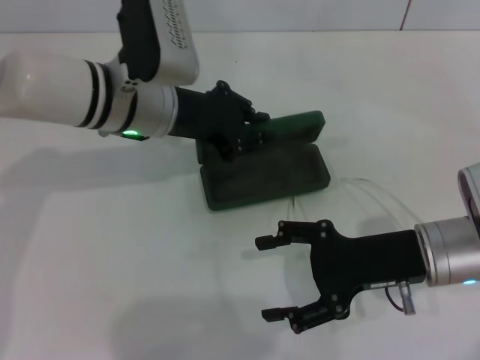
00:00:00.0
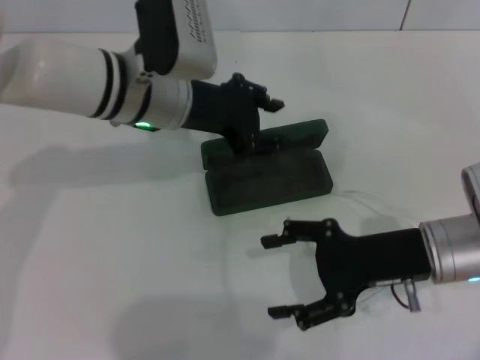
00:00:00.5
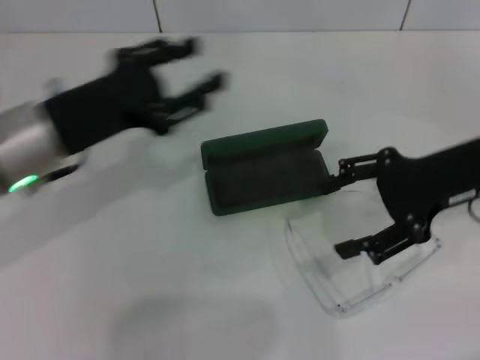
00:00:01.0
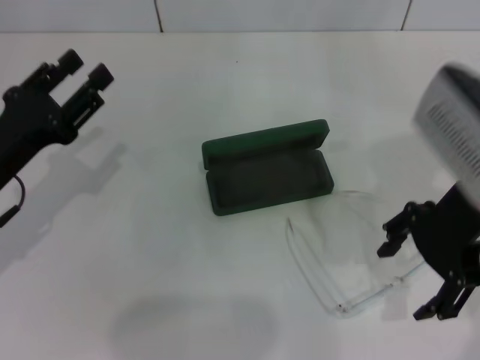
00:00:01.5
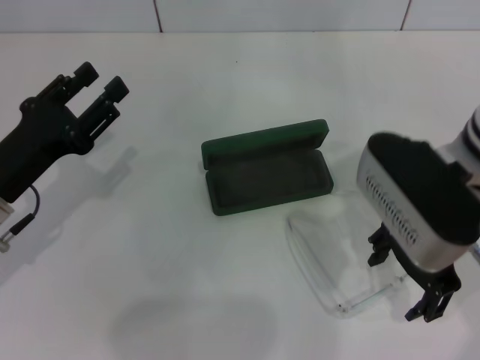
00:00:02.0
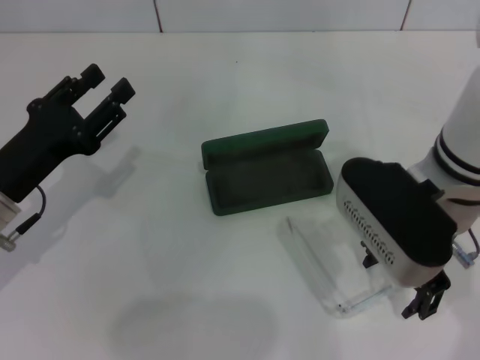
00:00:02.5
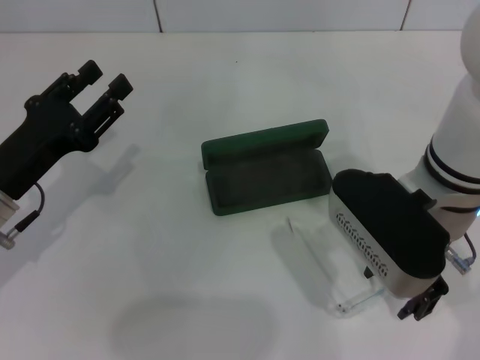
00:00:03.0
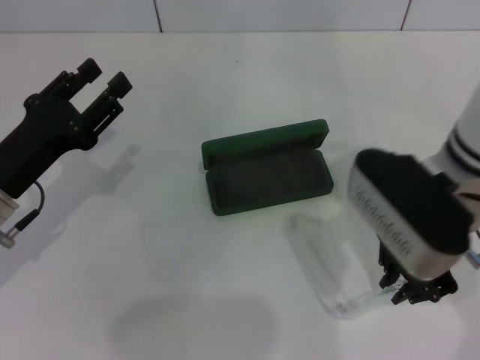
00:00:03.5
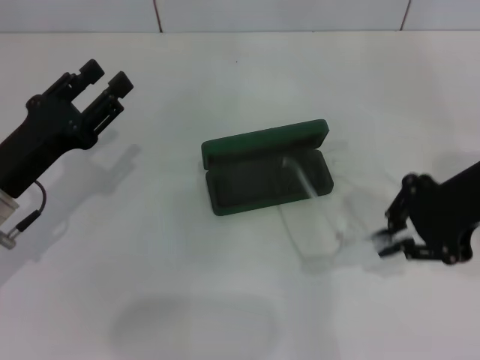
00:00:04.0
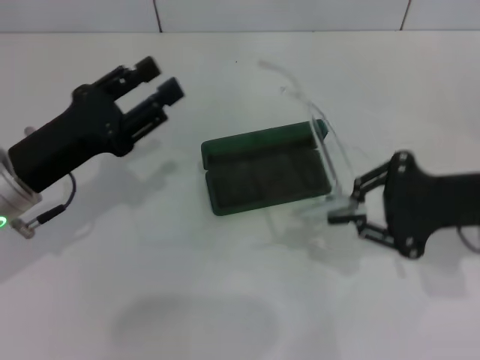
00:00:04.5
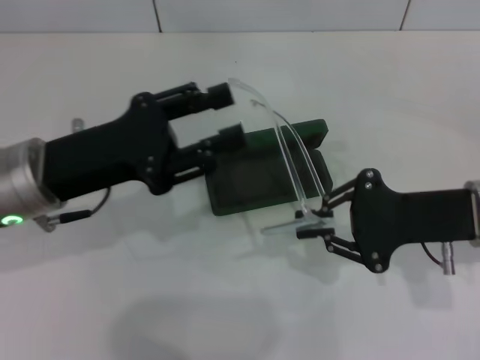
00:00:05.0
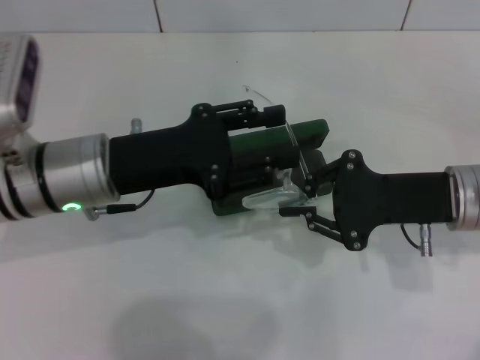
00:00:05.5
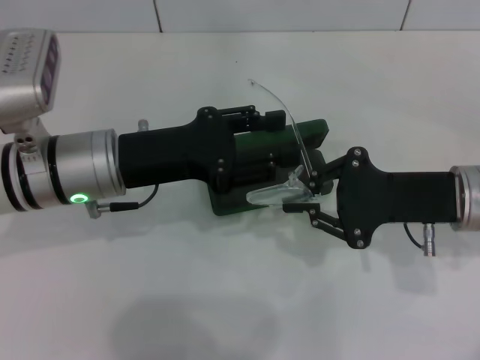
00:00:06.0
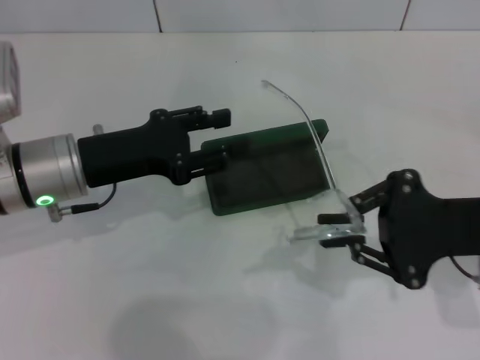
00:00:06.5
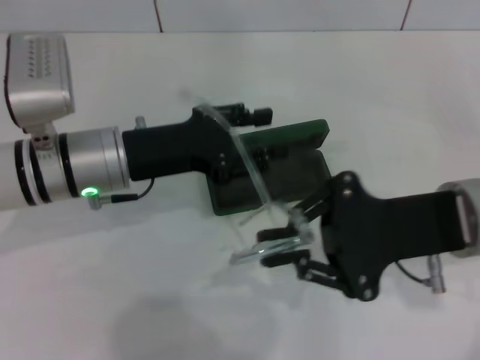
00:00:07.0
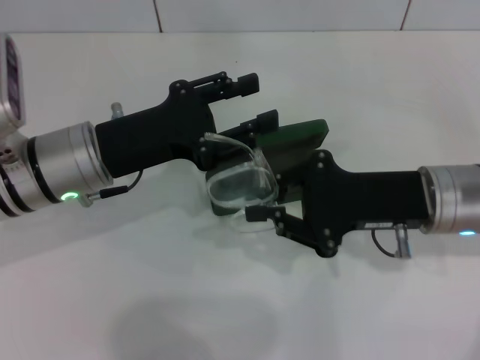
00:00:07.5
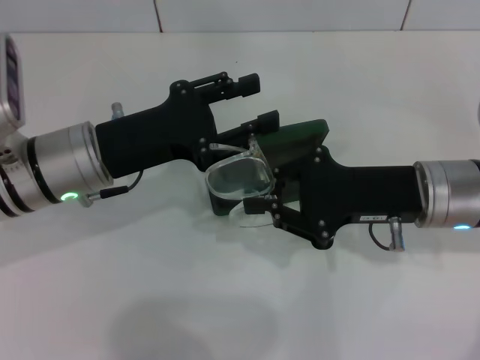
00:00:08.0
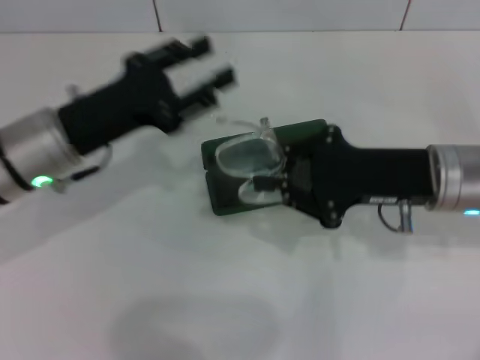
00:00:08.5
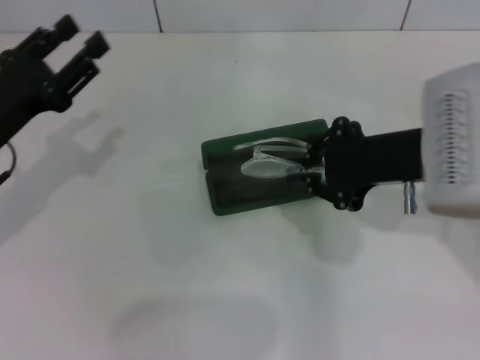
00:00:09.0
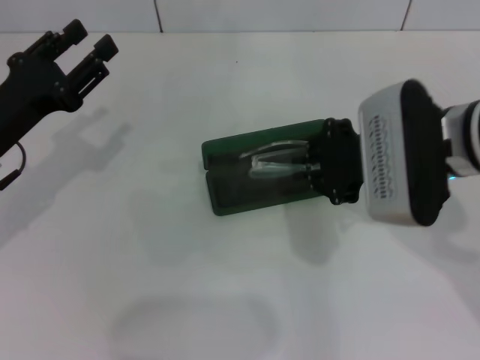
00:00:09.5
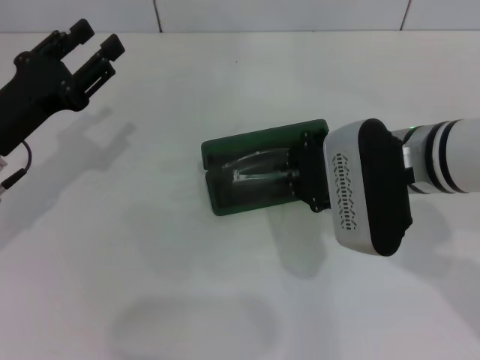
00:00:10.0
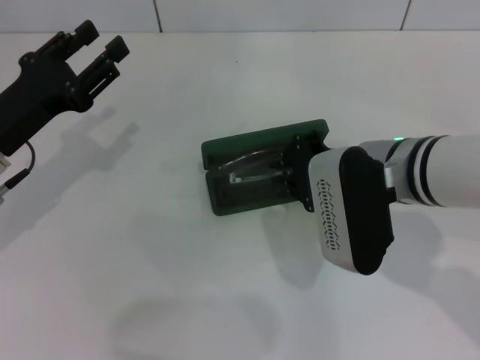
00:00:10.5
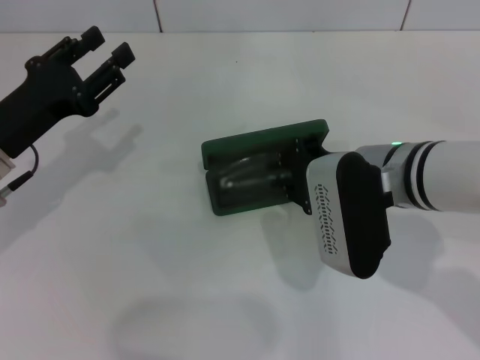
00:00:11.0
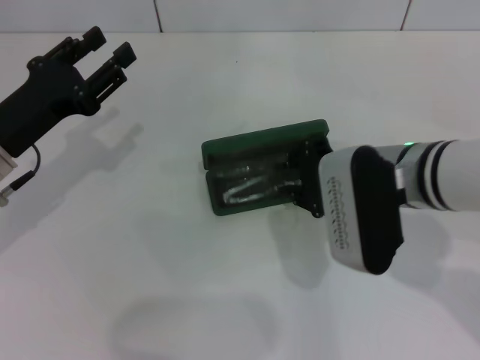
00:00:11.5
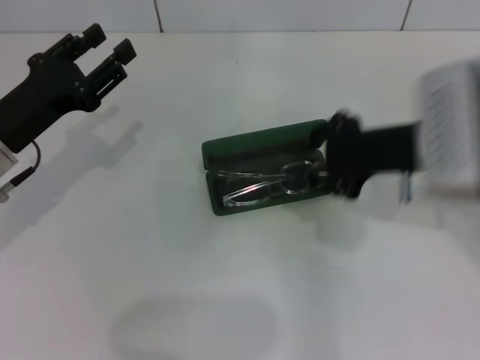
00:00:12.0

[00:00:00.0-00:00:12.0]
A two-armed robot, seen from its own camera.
Step, 00:00:01.0 to 00:00:03.0: Grab the eyeglass frame with your right hand.
Step, 00:00:03.5 to 00:00:08.0: Fold the frame with your left hand.
Step, 00:00:08.5 to 00:00:11.5: Put the glasses into the case with your right hand.
00:00:00.0 to 00:00:02.0: The right gripper heads upward, covering about 10 cm; the left gripper goes approximately 20 cm to the left, backward and downward, and opens.
00:00:02.0 to 00:00:04.0: The right gripper moves to the right, roughly 10 cm, and closes its fingers.
00:00:04.0 to 00:00:06.0: The left gripper goes approximately 10 cm to the right; the right gripper shifts some 10 cm downward.
00:00:08.0 to 00:00:10.0: The right gripper travels to the left by approximately 5 cm. Meanwhile the left gripper shifts roughly 10 cm to the left.
00:00:10.0 to 00:00:12.0: There are only small adjustments of the grippers.

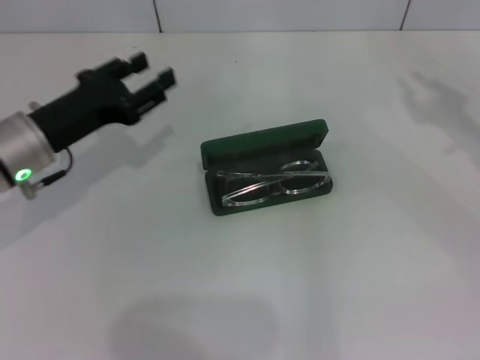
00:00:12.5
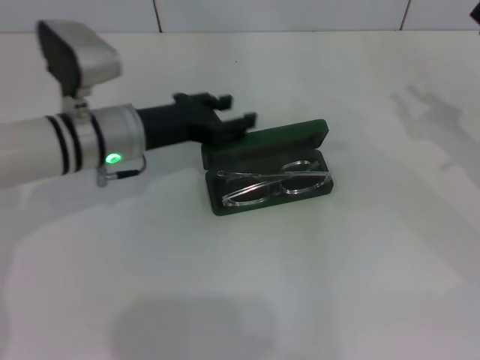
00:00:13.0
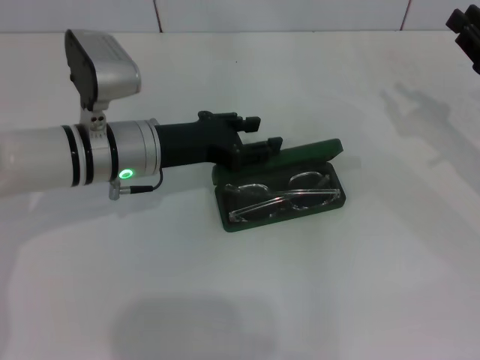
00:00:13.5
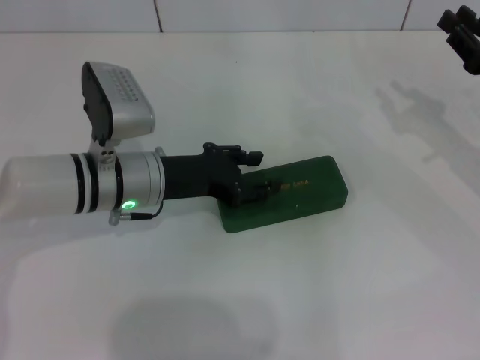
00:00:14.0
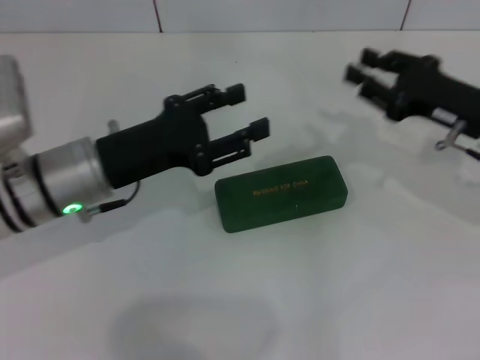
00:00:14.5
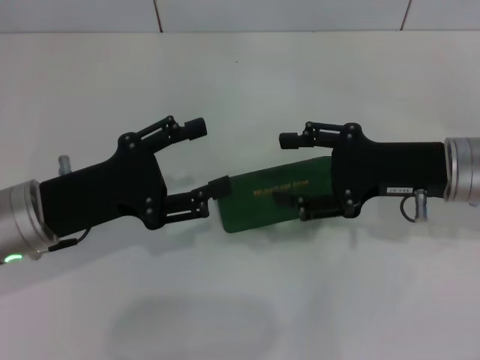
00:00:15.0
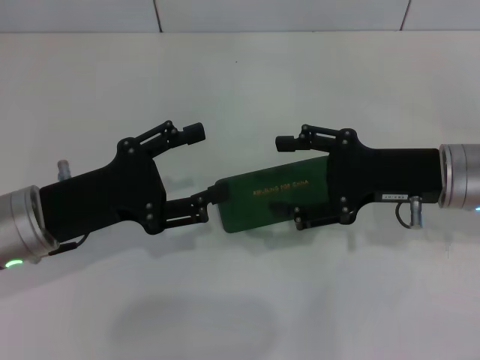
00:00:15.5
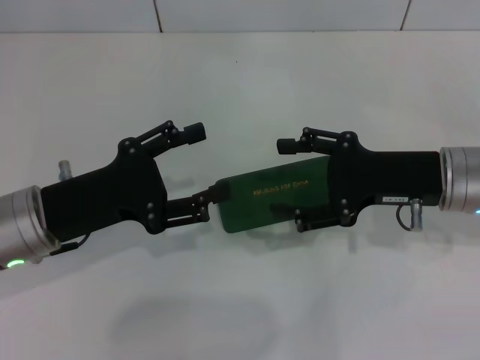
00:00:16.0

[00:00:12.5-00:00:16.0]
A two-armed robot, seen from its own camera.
Step, 00:00:12.5 to 00:00:14.0: Close the glasses case with your left hand.
00:00:12.5 to 00:00:14.5: The left gripper shifts roughly 5 cm to the right. Meanwhile the right gripper goes roughly 10 cm to the left.
00:00:14.5 to 00:00:16.0: The right gripper moves to the left, roughly 5 cm, and opens up; the left gripper moves about 5 cm, and opens its fingers.

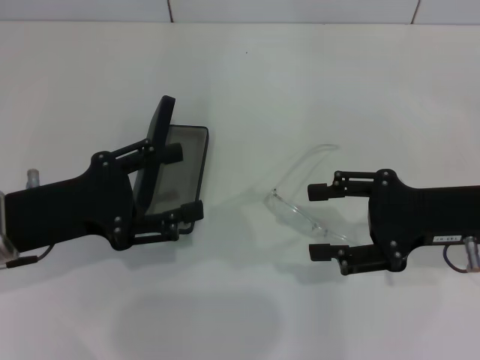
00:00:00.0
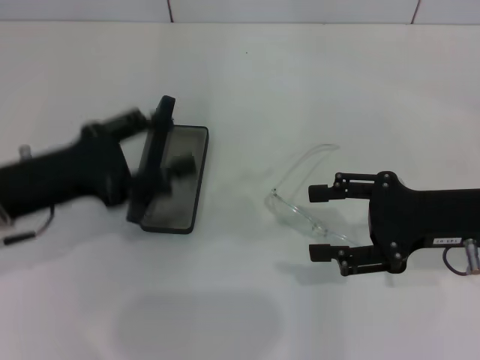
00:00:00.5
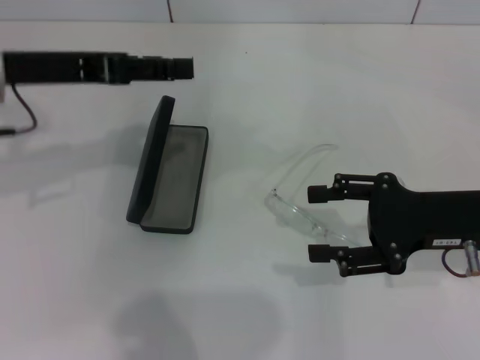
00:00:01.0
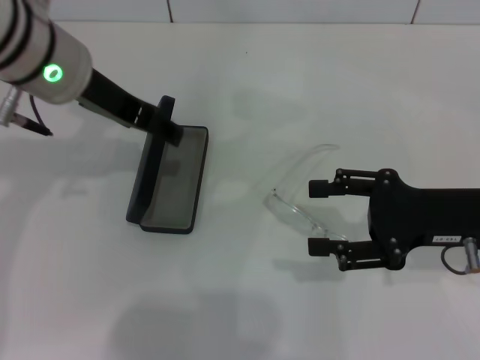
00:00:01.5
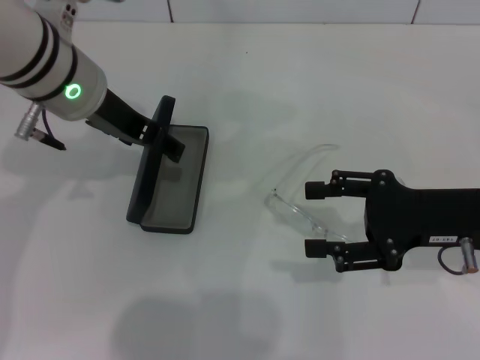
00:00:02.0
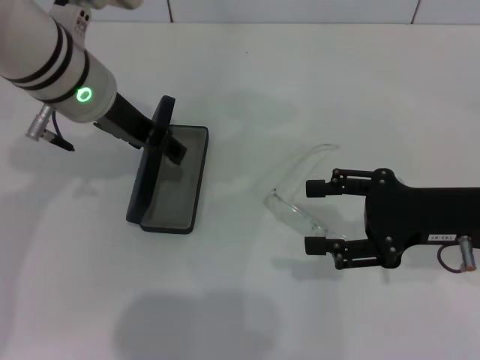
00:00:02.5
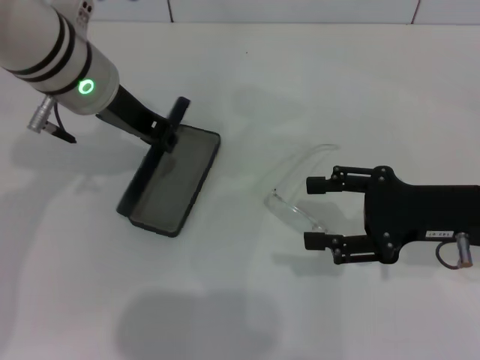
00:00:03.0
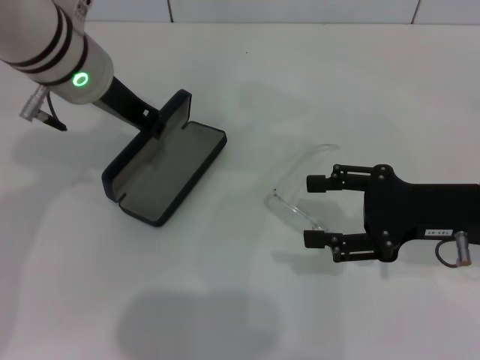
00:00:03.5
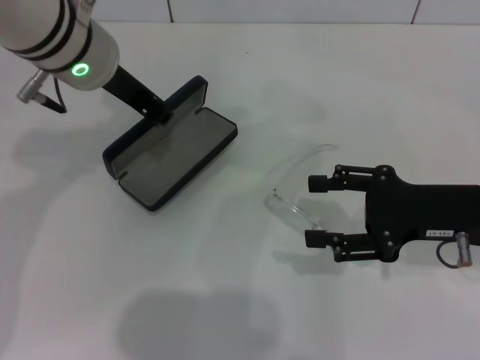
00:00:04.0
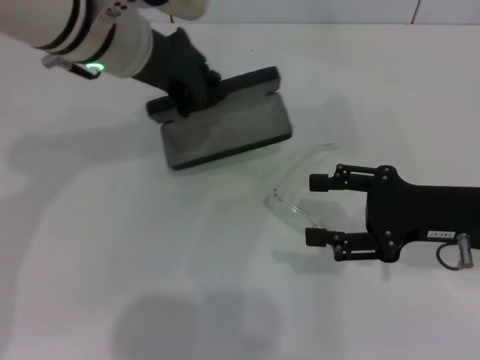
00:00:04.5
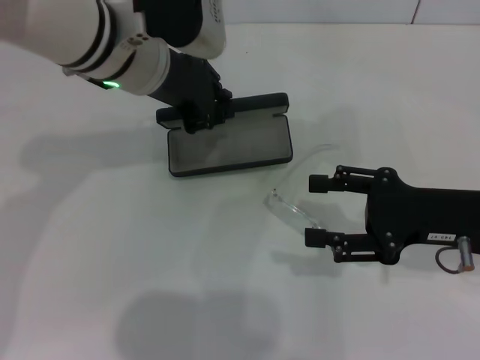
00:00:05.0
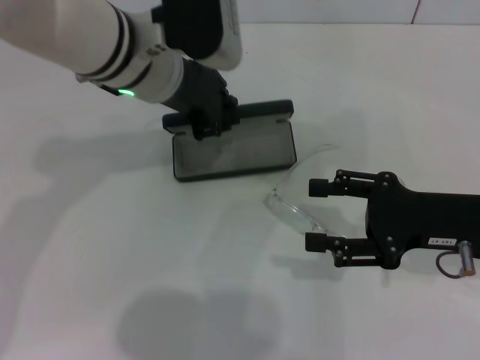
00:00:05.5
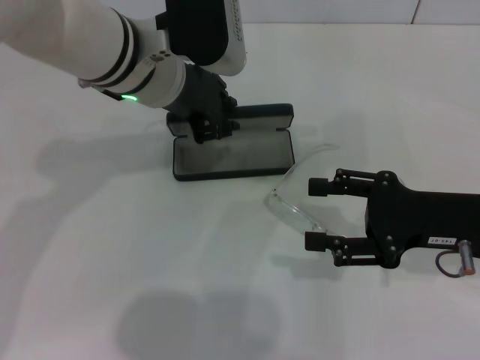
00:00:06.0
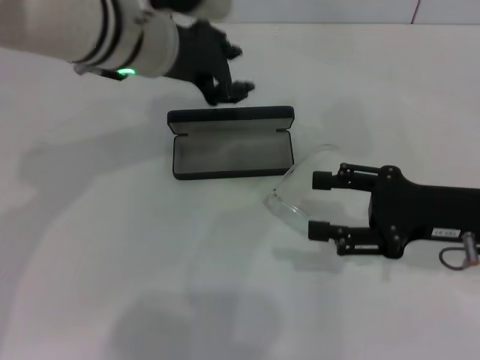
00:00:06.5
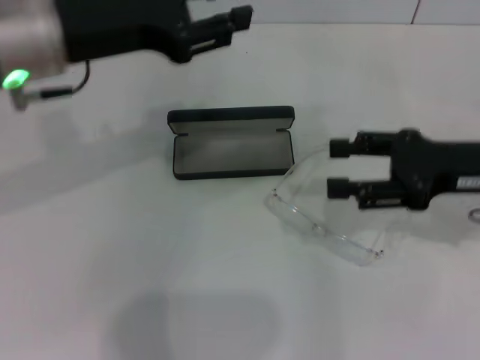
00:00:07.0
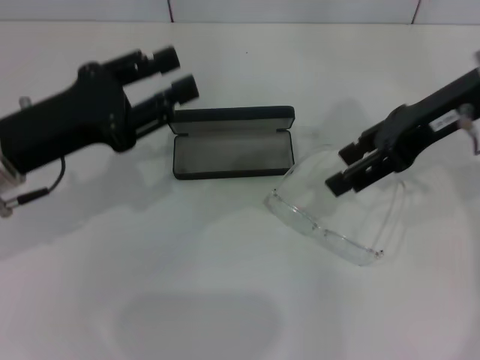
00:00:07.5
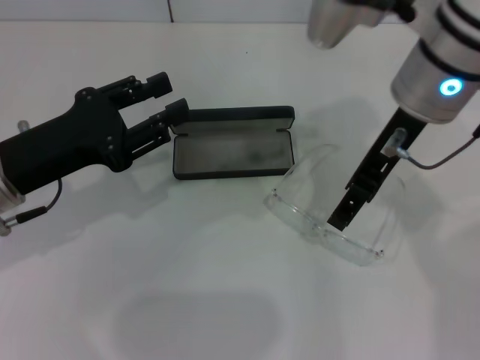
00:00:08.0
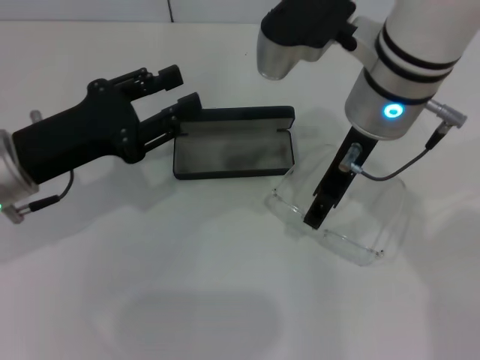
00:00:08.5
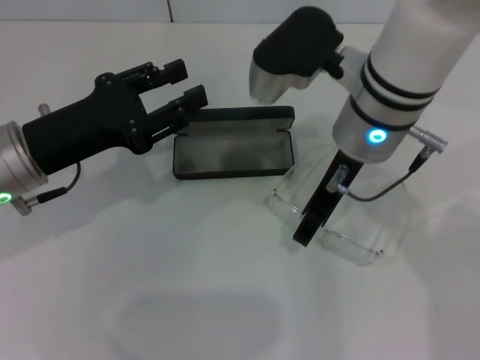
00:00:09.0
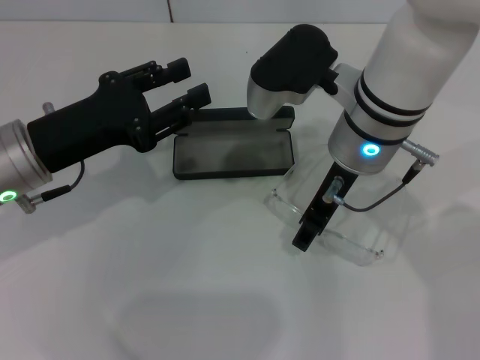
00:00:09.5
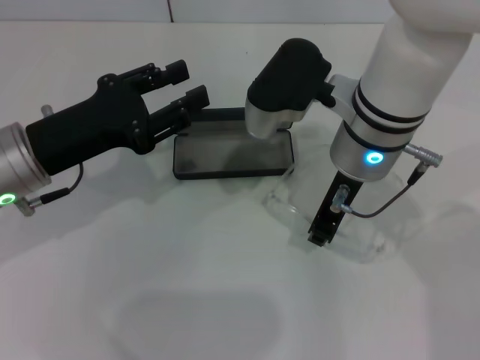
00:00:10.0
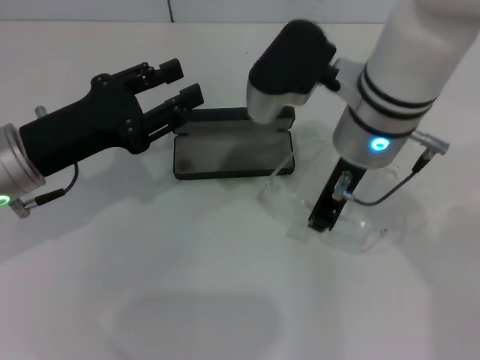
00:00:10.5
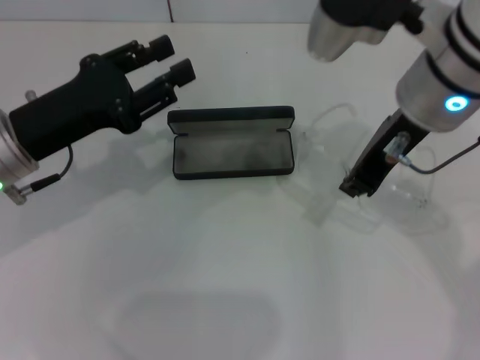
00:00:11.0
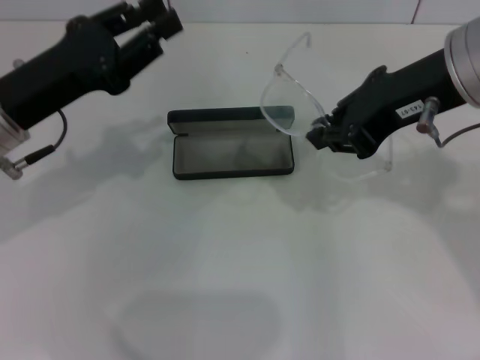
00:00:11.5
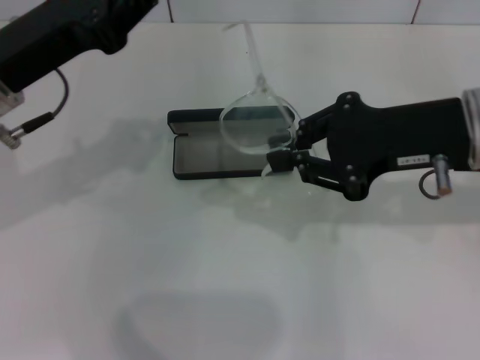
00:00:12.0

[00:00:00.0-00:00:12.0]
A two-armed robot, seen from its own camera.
Step, 00:00:00.0 to 00:00:03.0: Grab the glasses case with your left hand.
Step, 00:00:03.5 to 00:00:06.0: Place the glasses case in the center of the table with your left hand.
Step, 00:00:06.5 to 00:00:10.0: Grab the eyeglass frame with your right hand.
00:00:00.0 to 00:00:02.0: The left gripper goes approximately 20 cm forward, to the right and upward.
00:00:02.0 to 00:00:04.0: The left gripper closes.
00:00:04.0 to 00:00:06.0: The left gripper changes place by about 5 cm.
00:00:06.0 to 00:00:08.0: The right gripper heads upward, to the left and forward, covering some 20 cm, while the left gripper shifts about 20 cm to the left, backward and downward.
00:00:08.0 to 00:00:10.0: The right gripper shifts some 5 cm downward, and closes up.
00:00:10.0 to 00:00:12.0: The right gripper moves to the right, some 10 cm, and closes up, while the left gripper moves upward, about 5 cm, and closes up.
